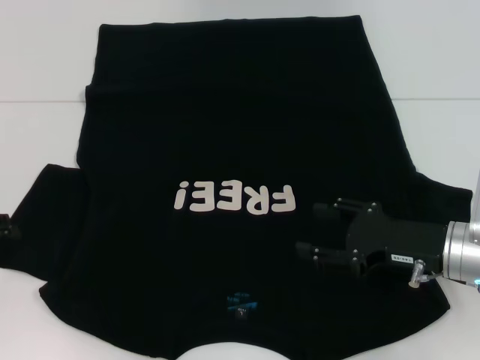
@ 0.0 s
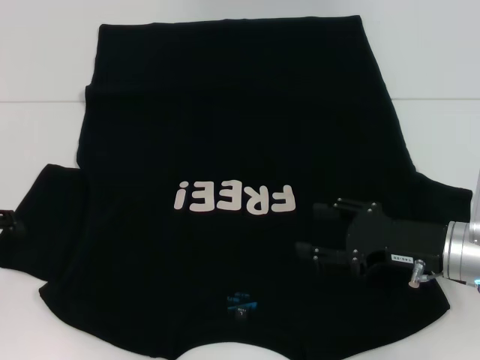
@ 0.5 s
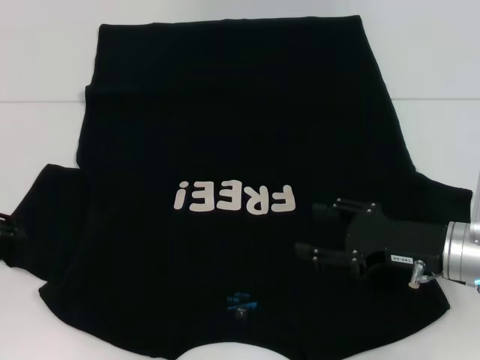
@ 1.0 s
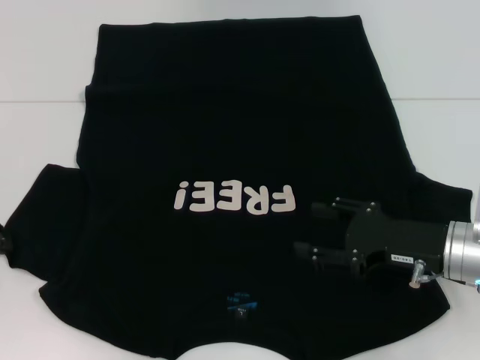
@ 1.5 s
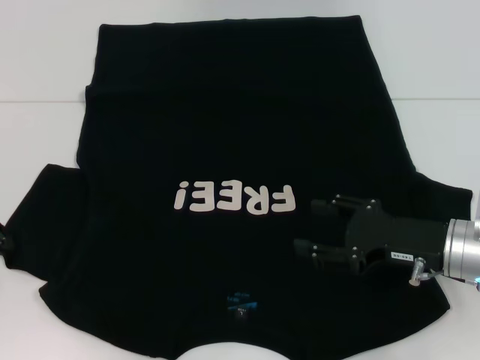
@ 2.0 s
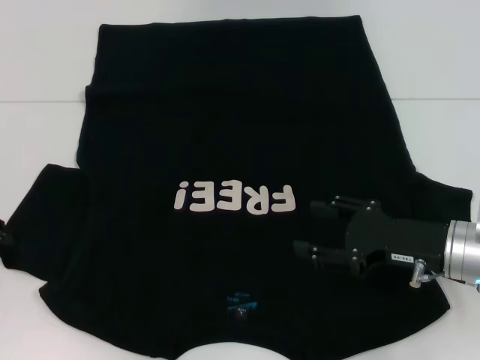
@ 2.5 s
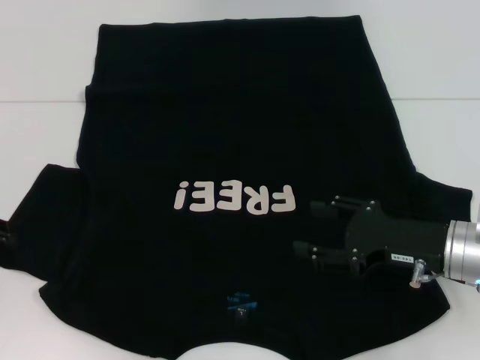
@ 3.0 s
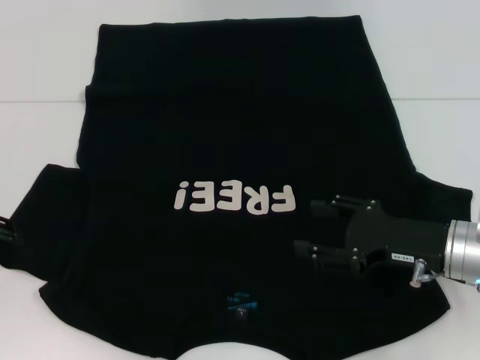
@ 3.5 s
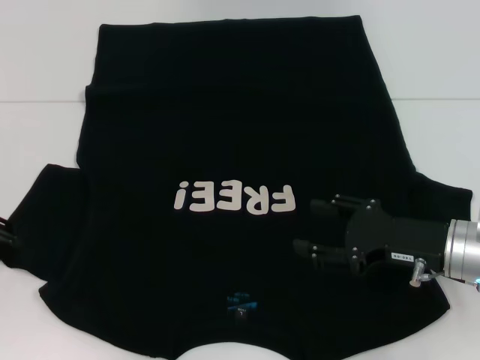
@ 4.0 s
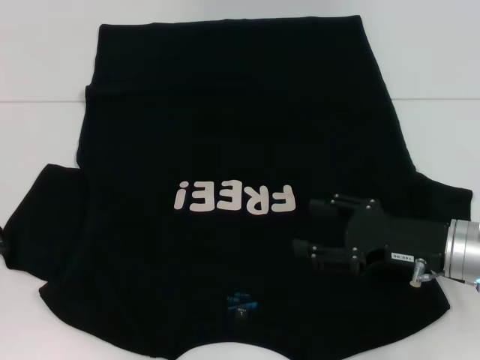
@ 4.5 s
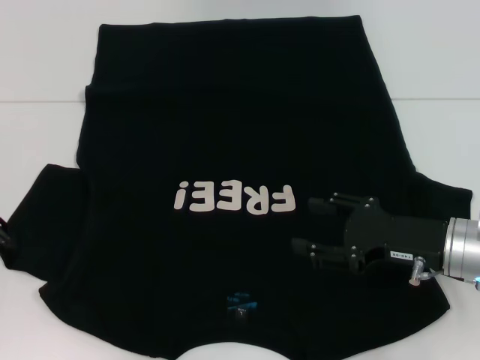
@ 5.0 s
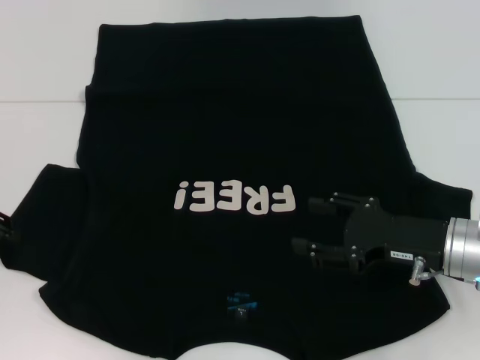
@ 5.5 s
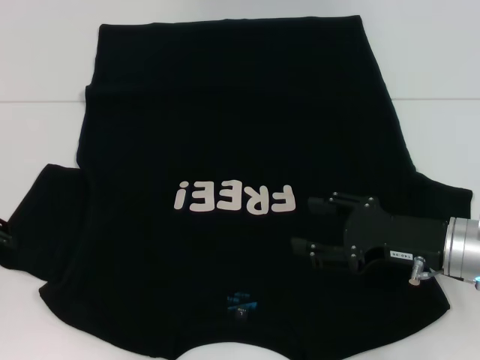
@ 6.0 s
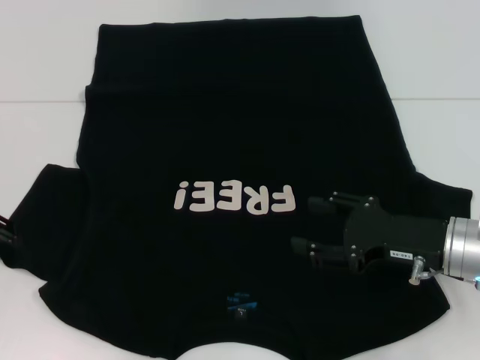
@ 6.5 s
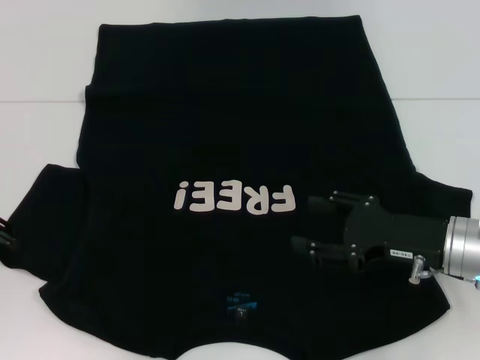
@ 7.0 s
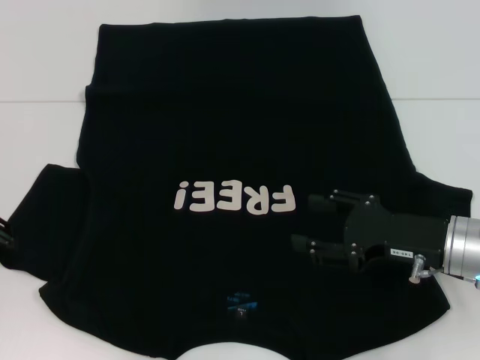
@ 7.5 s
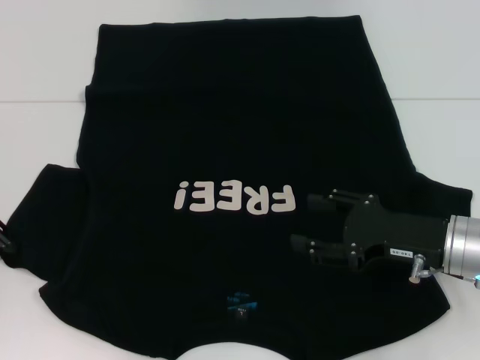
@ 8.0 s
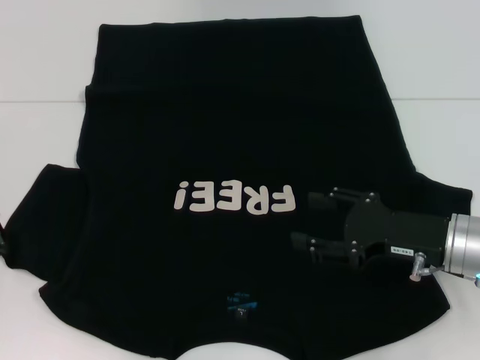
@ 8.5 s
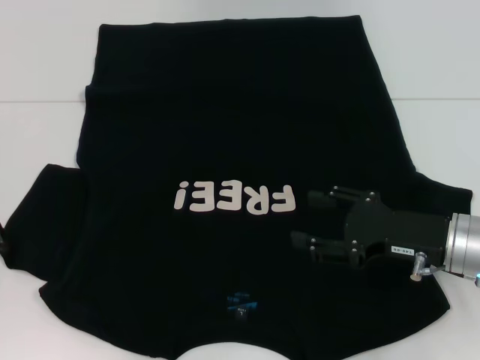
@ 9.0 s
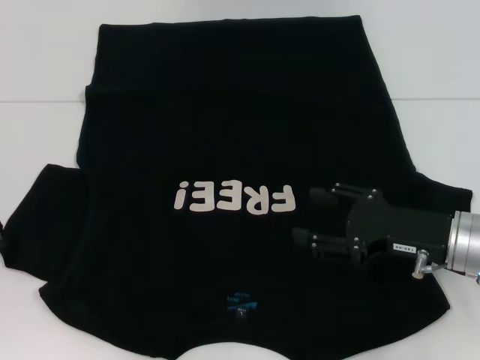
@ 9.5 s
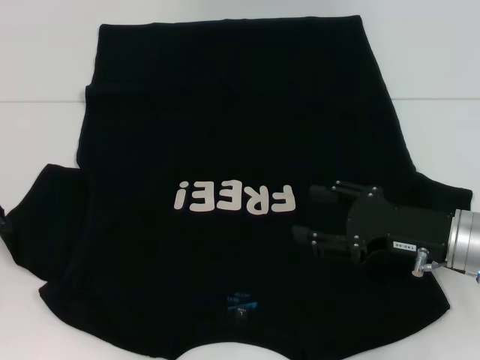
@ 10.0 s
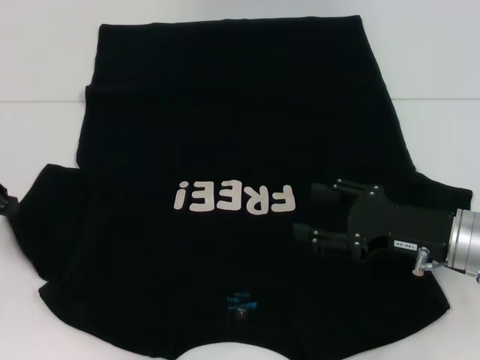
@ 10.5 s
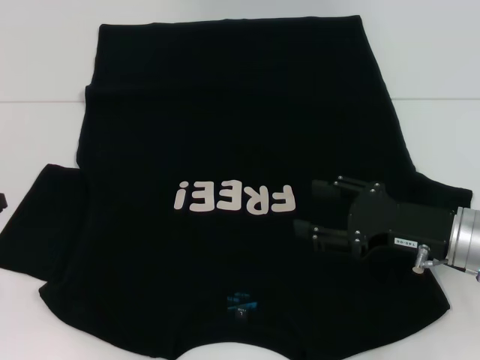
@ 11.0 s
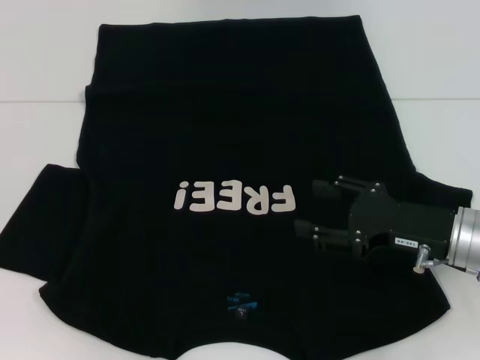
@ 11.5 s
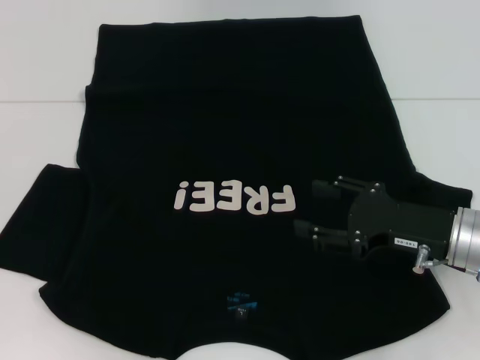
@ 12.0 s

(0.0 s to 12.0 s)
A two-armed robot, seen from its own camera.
4.0 s - 6.0 s: Both grippers stay put.
6.0 s - 8.0 s: Both grippers stay put.
8.0 s - 10.0 s: The grippers stay close to where they were, moving slightly.

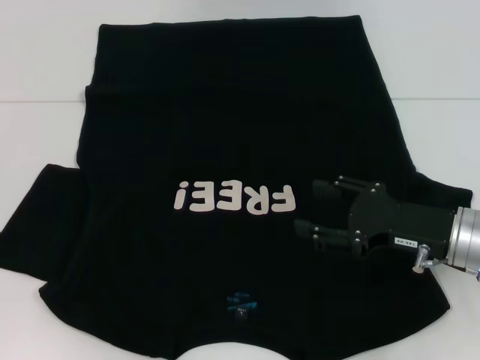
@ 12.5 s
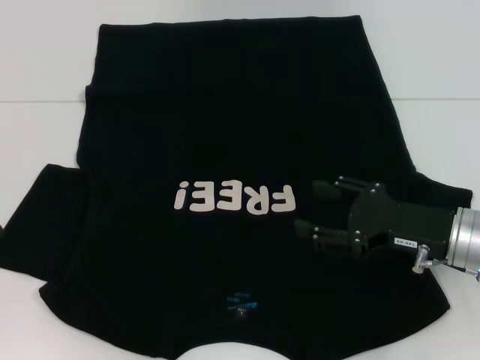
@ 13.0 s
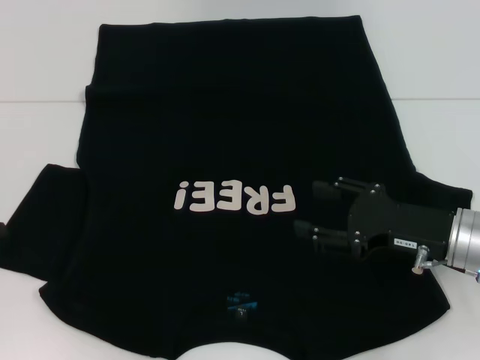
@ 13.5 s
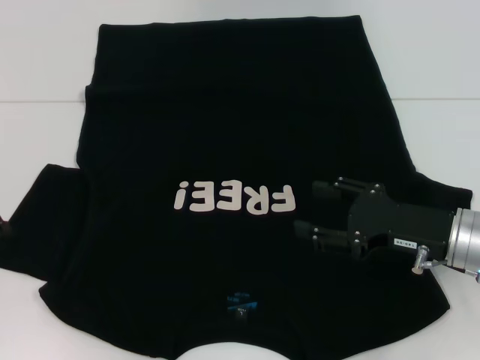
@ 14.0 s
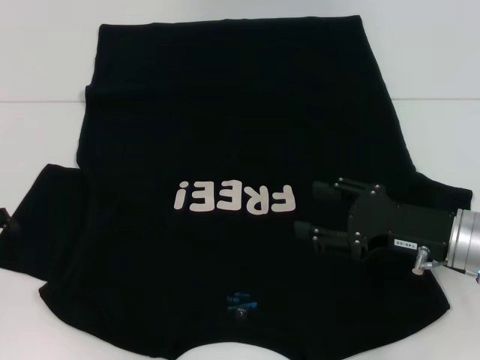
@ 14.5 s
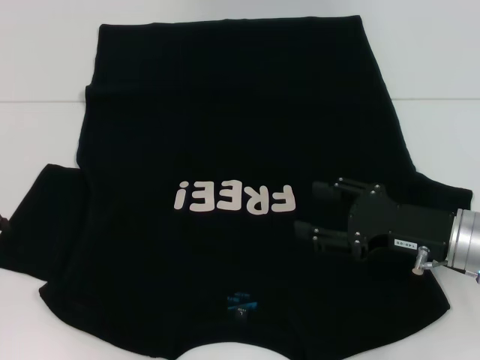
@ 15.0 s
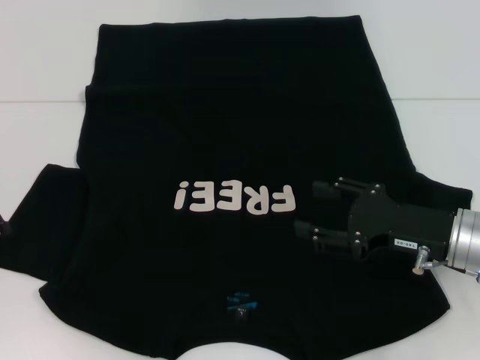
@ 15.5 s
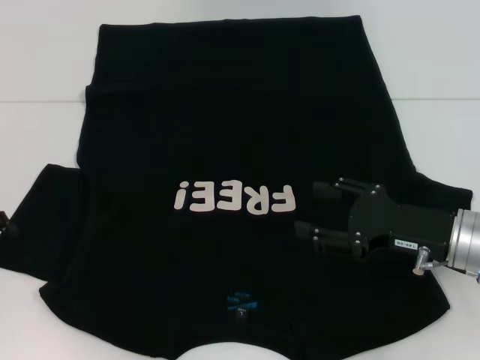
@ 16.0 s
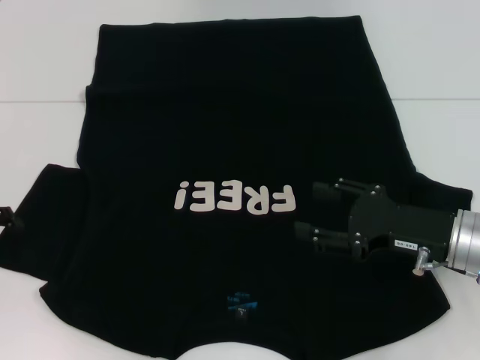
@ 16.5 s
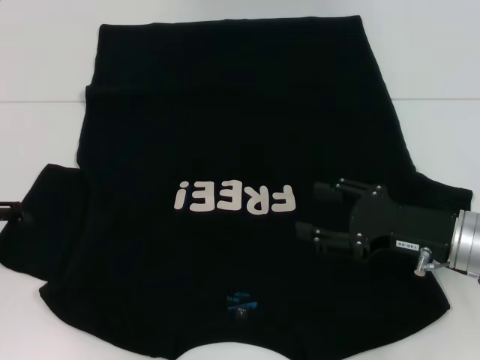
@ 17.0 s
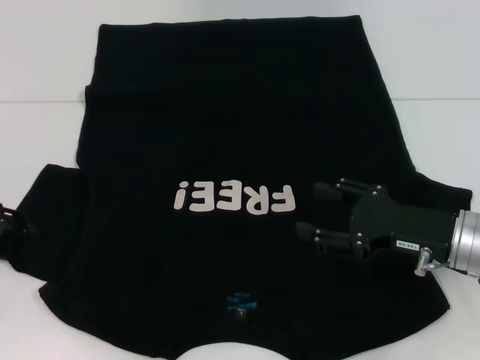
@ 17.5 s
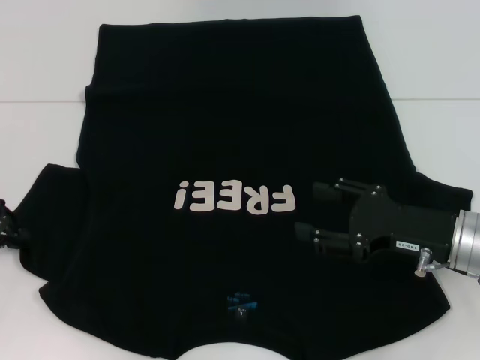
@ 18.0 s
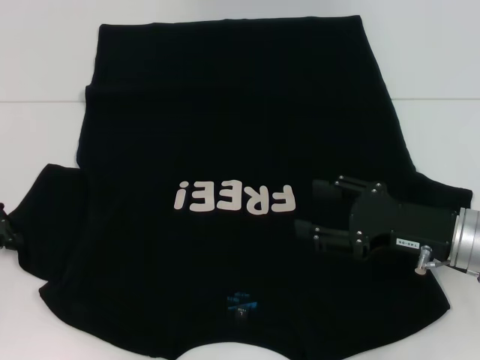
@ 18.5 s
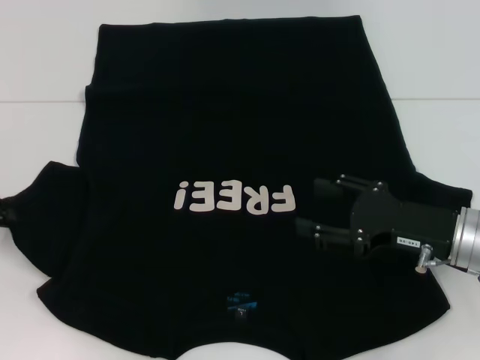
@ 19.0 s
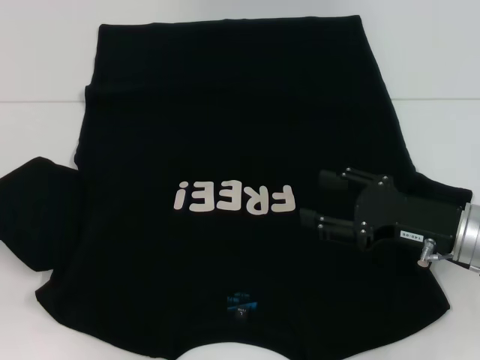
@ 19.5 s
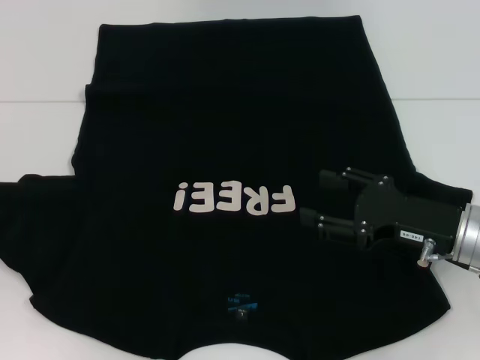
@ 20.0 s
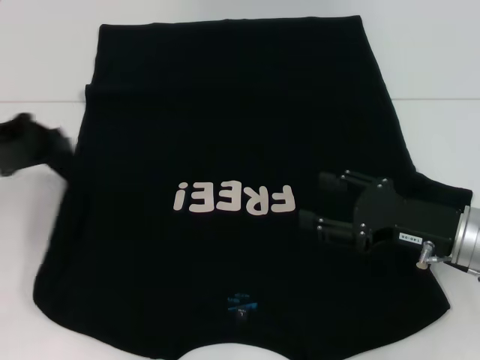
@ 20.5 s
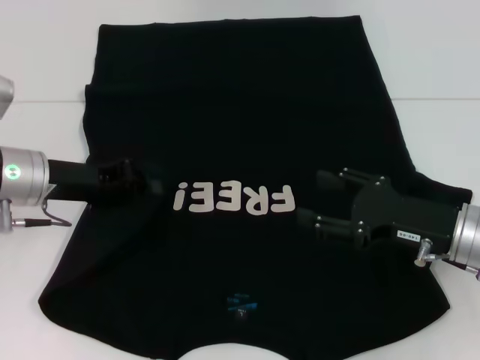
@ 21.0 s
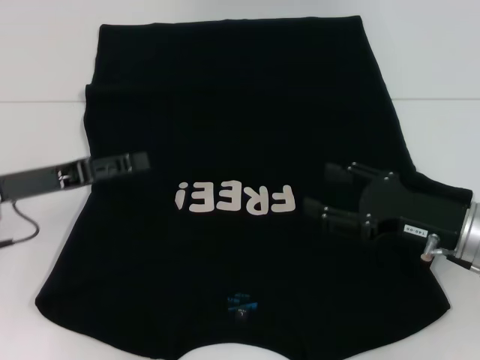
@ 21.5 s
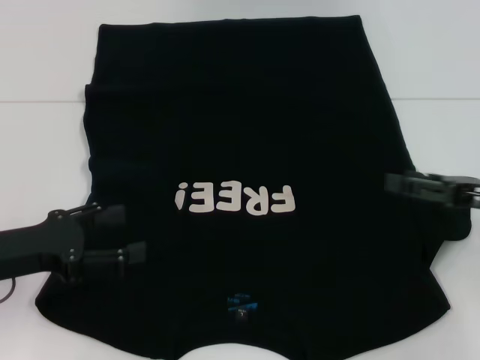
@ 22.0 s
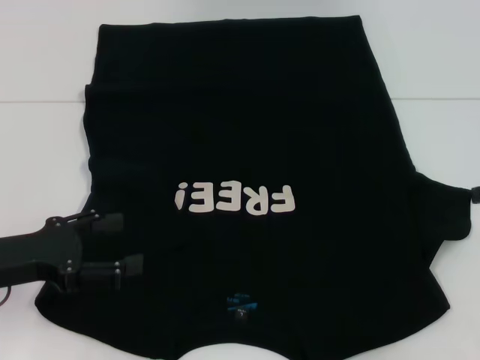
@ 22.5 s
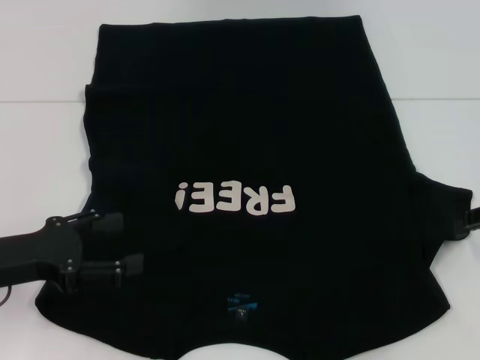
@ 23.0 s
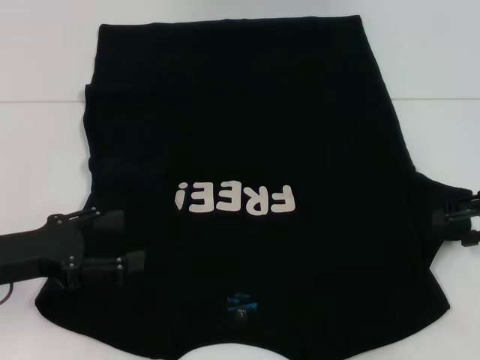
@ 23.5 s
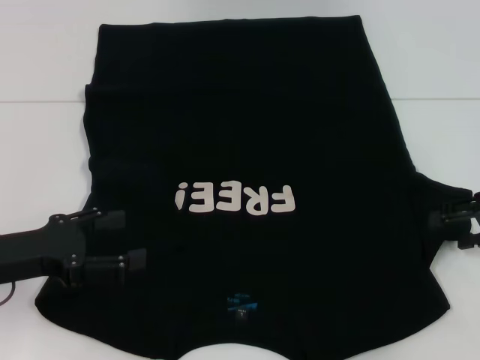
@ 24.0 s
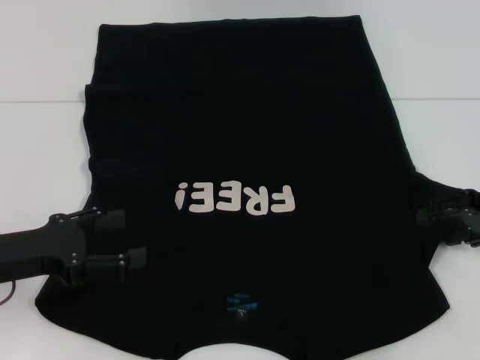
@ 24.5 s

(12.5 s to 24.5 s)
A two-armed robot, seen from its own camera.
Step, 12.5 s - 21.5 s: Fold the bottom left sleeve with your left hand.
14.5 s - 16.5 s: Both grippers stay put.
18.5 s - 20.5 s: The left gripper goes some 5 cm upward.
20.5 s - 22.5 s: The right gripper travels to the right and upward by roughly 15 cm; the left gripper travels backward and downward by some 10 cm, and opens up.

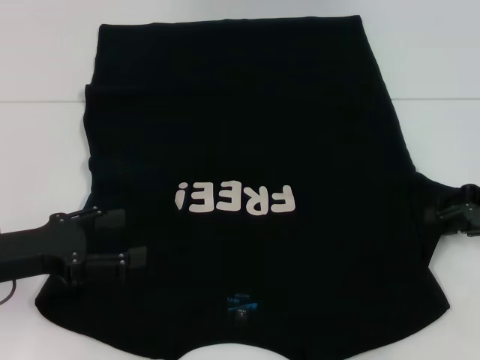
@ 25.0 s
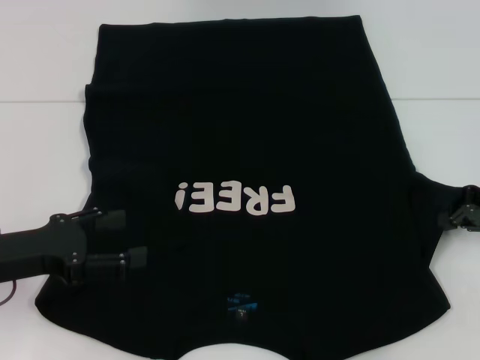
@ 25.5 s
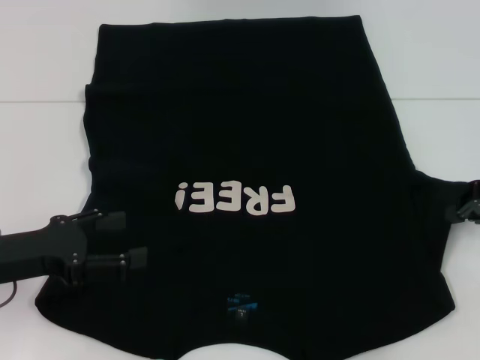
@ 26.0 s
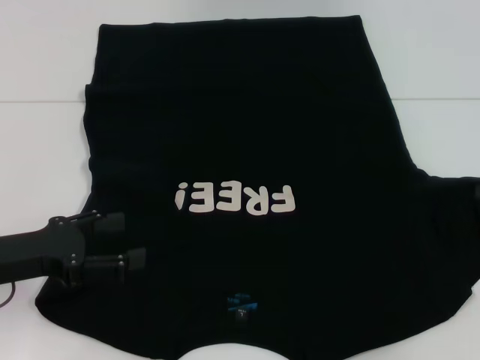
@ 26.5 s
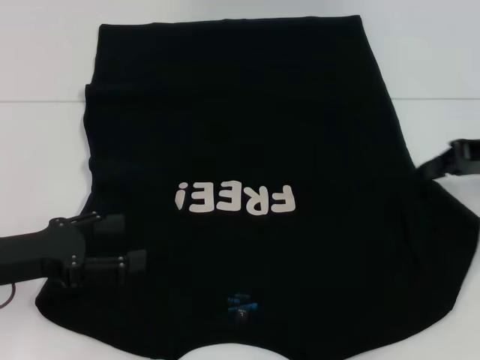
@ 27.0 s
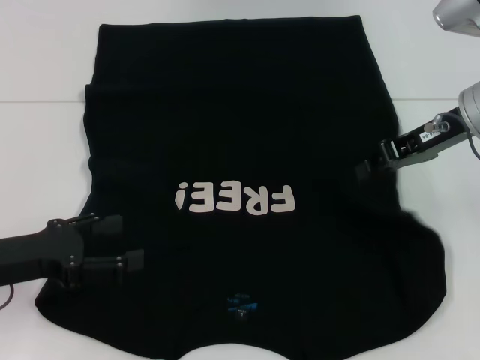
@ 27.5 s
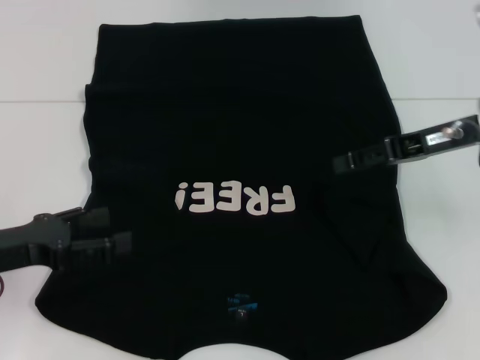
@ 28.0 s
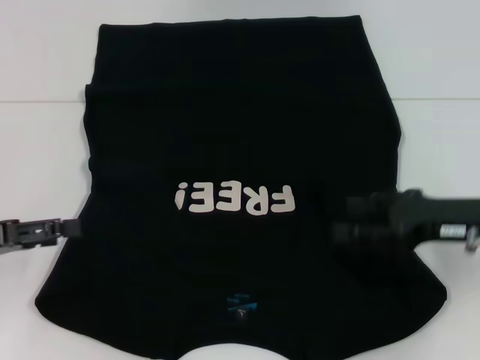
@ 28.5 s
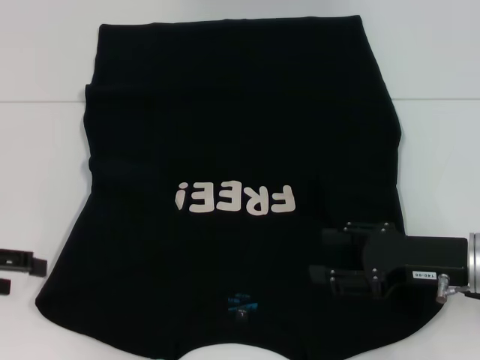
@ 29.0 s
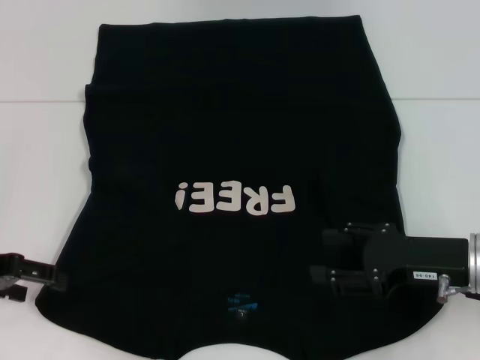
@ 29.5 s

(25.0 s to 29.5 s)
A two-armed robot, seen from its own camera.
Step, 25.0 s - 29.0 s: Fold the bottom right sleeve with your right hand.
25.0 s - 27.0 s: The right gripper is displaced upward by about 5 cm, and closes up.
27.0 s - 29.5 s: The right gripper travels downward, backward and to the left by approximately 15 cm, and opens its fingers; the left gripper ends up roughly 5 cm from where it was.
